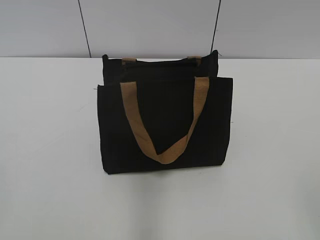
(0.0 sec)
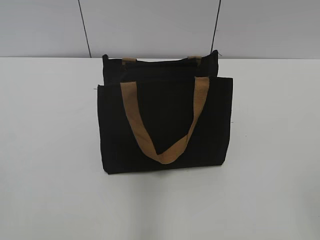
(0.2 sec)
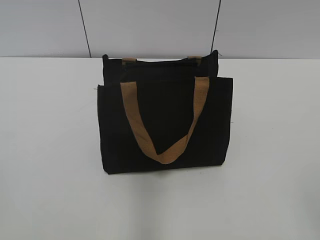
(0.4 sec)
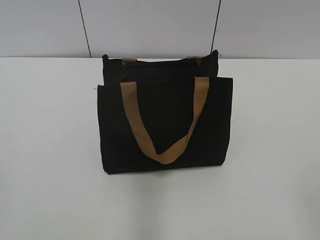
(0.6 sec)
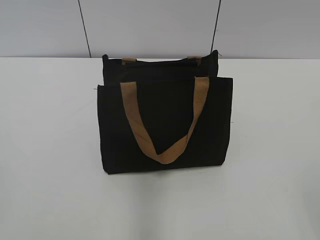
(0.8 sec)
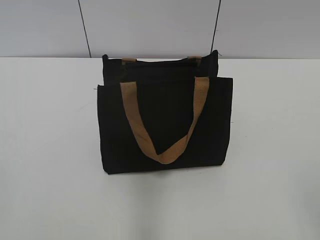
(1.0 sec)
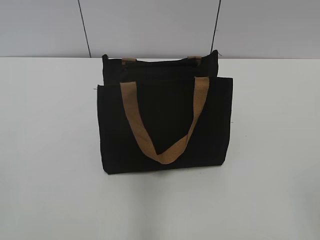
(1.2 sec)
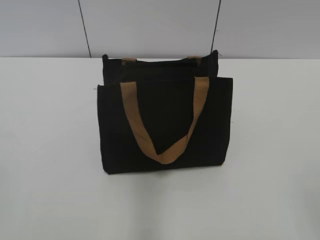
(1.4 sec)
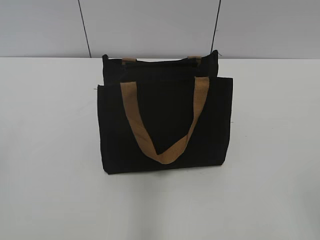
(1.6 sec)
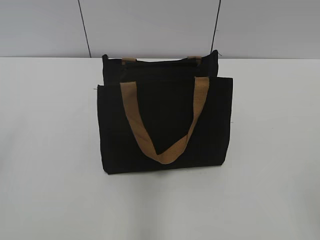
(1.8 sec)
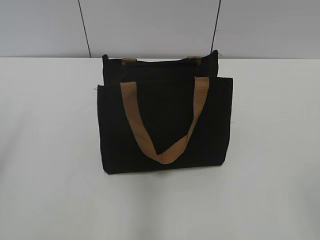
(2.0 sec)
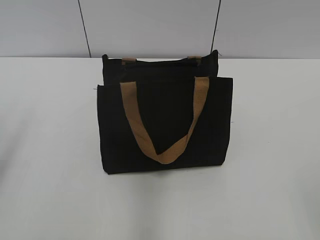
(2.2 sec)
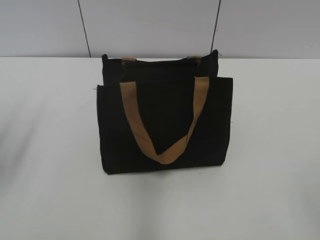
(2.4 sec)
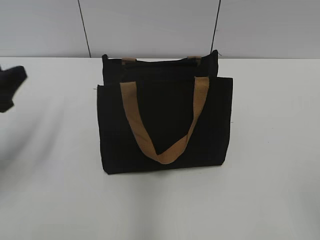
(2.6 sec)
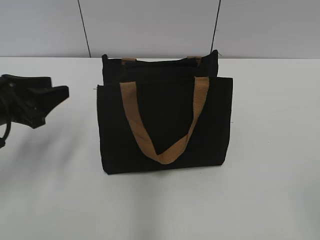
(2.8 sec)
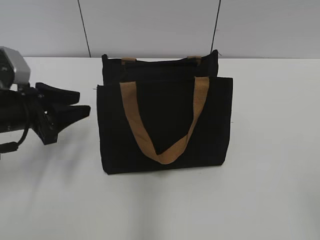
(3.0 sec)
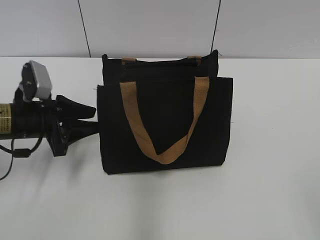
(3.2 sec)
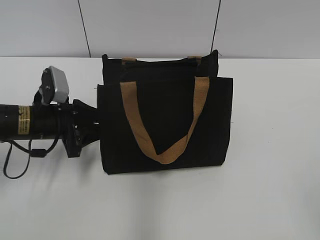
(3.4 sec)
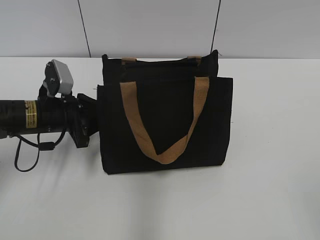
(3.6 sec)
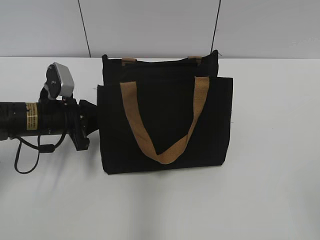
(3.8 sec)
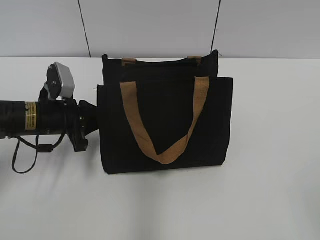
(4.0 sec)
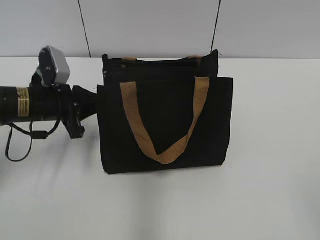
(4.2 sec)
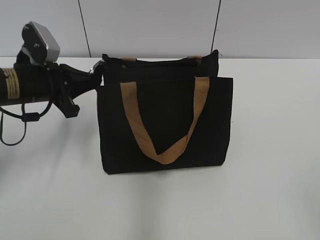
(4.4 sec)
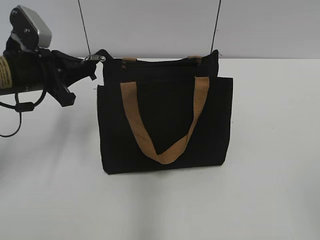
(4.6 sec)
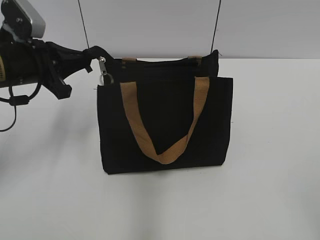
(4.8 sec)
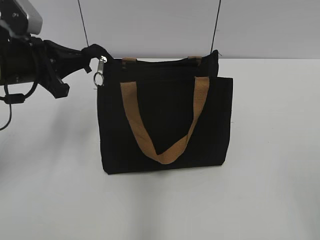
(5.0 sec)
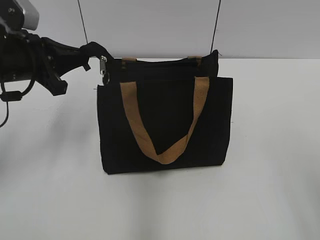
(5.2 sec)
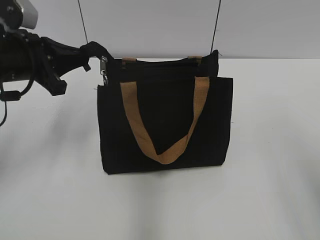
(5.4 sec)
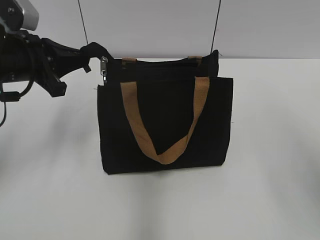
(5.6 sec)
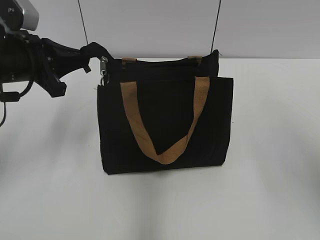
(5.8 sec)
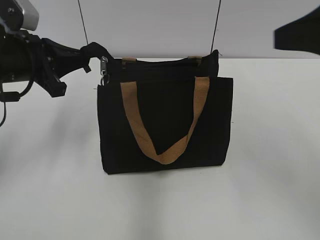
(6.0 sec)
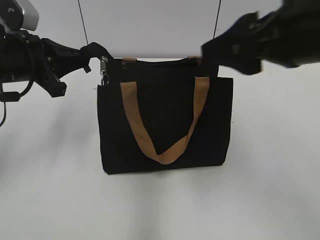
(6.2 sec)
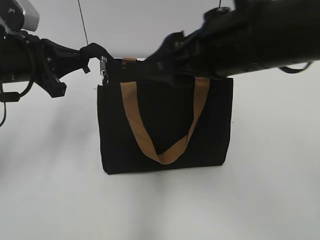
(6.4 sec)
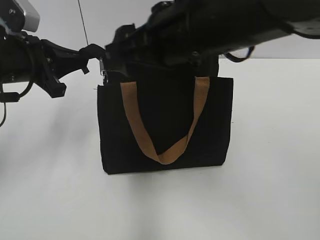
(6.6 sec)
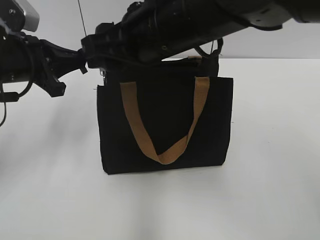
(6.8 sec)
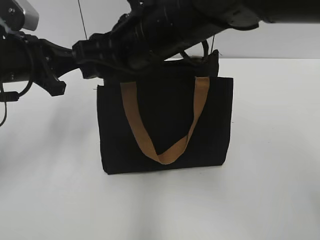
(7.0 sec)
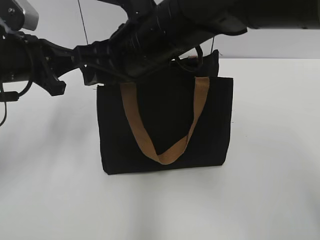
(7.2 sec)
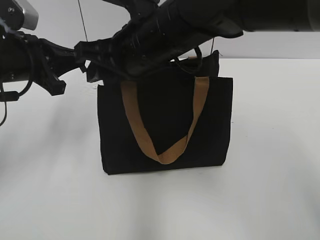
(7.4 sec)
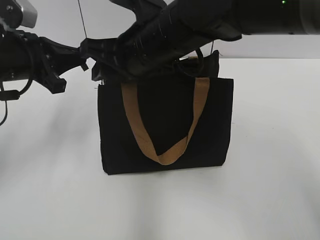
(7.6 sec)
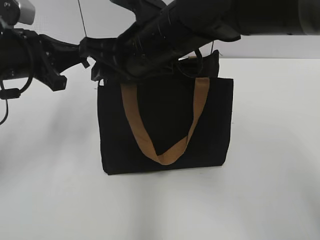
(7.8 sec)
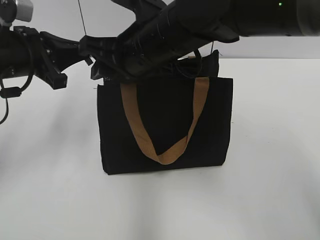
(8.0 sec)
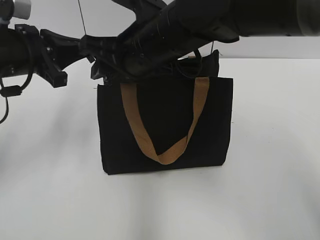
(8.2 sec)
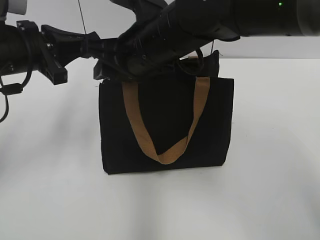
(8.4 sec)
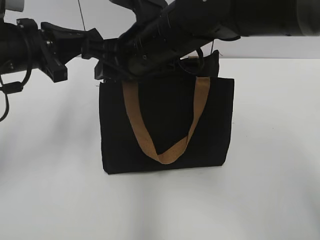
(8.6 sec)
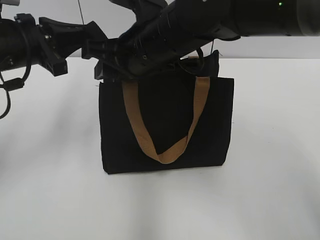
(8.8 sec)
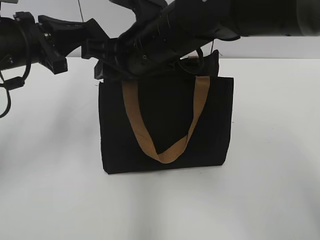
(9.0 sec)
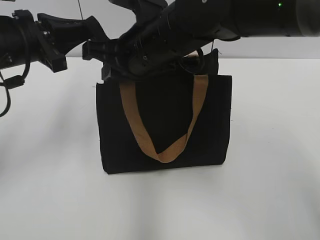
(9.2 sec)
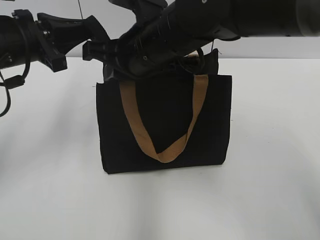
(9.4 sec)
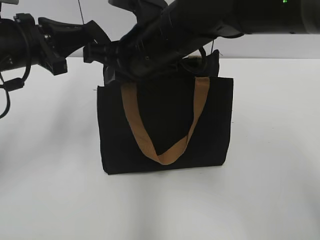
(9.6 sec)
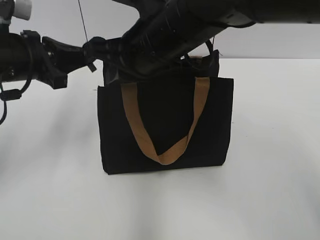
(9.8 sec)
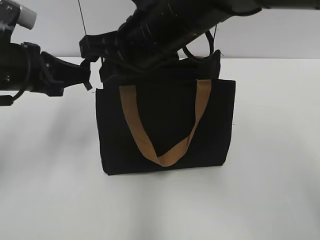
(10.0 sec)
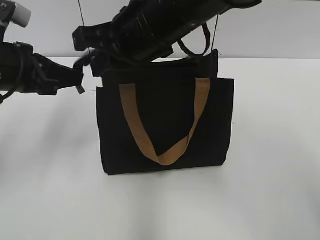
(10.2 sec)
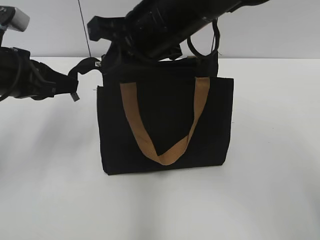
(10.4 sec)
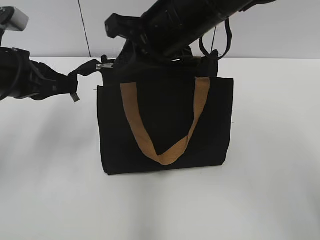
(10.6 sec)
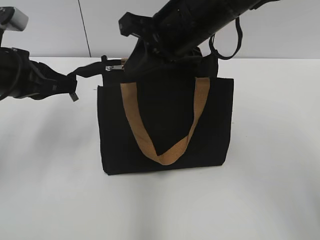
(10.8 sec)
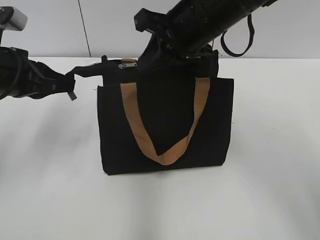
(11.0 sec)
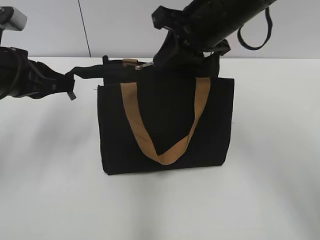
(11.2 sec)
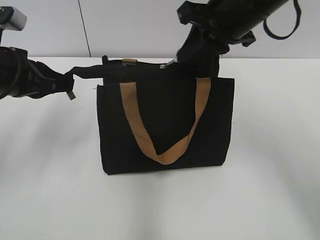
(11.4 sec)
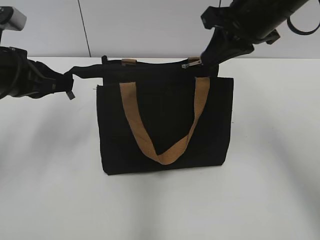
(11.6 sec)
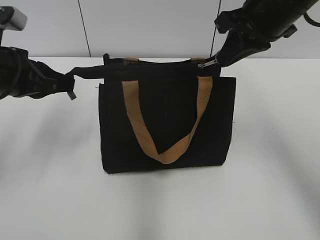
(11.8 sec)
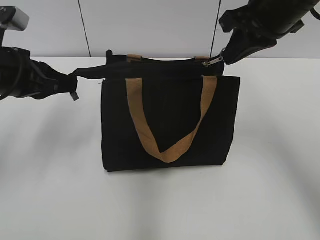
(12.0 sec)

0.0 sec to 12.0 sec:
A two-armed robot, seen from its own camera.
1.6 sec to 3.0 sec: The left gripper shifts some 30 cm forward and downward.
3.0 sec to 4.4 sec: The left gripper moves some 5 cm, and closes its fingers.
4.4 sec to 6.0 sec: The right gripper moves forward and upward, roughly 20 cm, while the left gripper ends up roughly 5 cm from where it was.
6.0 sec to 7.6 sec: The right gripper moves to the left, forward and downward, some 25 cm.
7.6 sec to 9.0 sec: There are only small adjustments of the grippers.
9.0 sec to 10.4 sec: The right gripper closes.
10.4 sec to 12.0 sec: The right gripper shifts approximately 15 cm to the right.

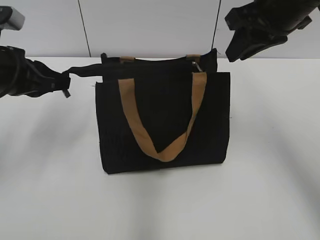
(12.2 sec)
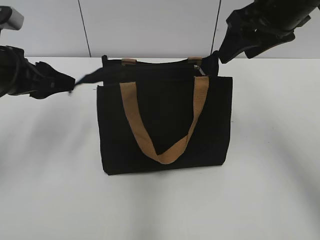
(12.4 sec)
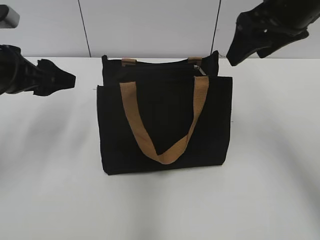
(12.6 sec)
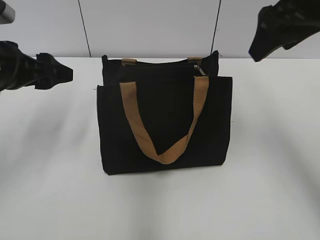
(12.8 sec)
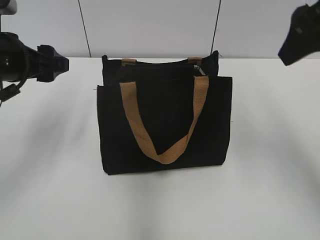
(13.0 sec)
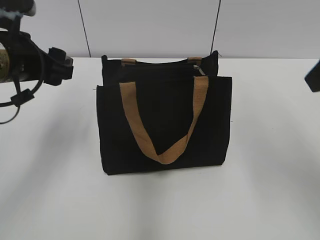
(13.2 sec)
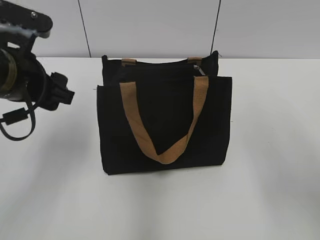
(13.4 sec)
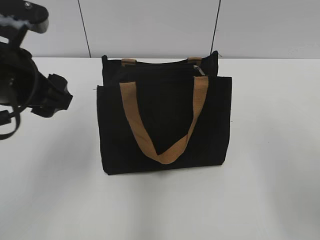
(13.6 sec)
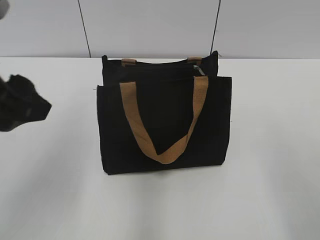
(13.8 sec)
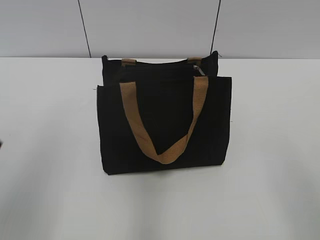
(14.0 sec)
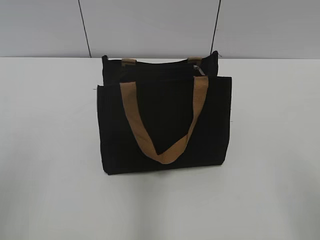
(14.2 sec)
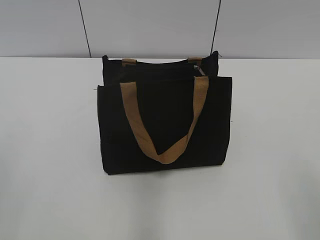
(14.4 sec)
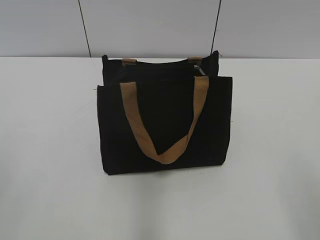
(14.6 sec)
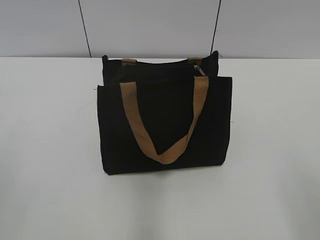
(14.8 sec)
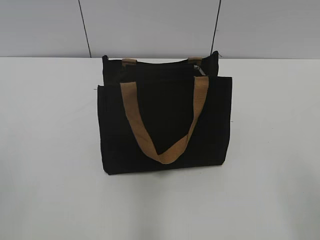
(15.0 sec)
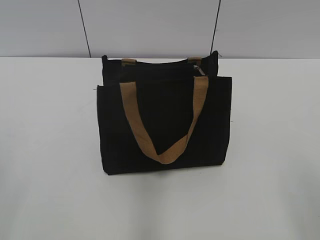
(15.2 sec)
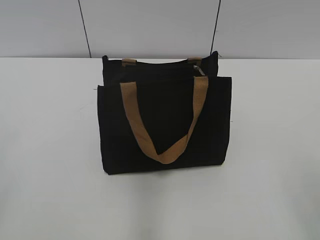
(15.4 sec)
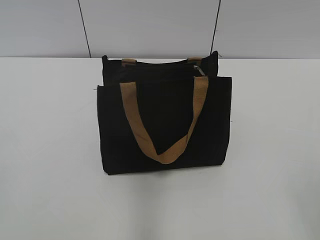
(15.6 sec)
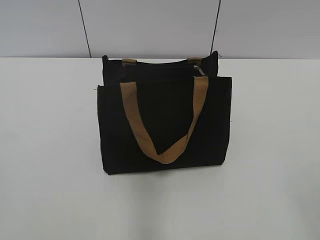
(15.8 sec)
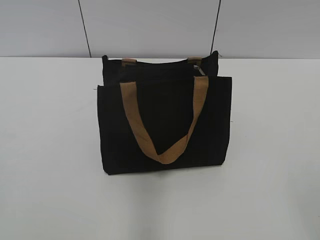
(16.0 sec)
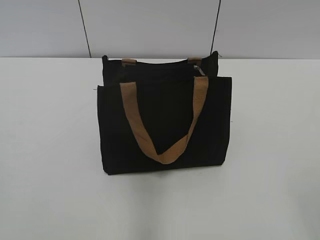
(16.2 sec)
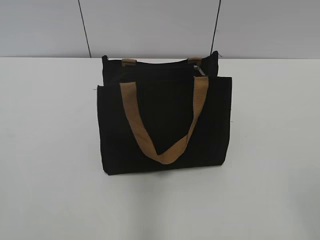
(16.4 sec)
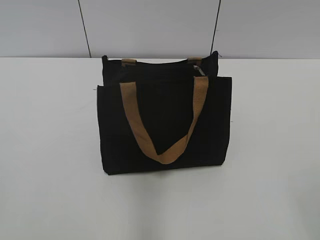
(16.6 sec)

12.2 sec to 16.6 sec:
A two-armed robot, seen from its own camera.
Step, 12.2 sec to 12.4 sec: Grab the zipper with your left hand.
12.2 sec to 13.6 sec: The left gripper heads backward and to the right, covering approximately 10 cm, and opens its fingers, while the right gripper heads backward, covering some 20 cm, and opens up.
13.6 sec to 15.2 sec: The left gripper is displaced backward and to the left by about 25 cm.
